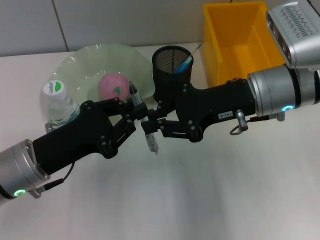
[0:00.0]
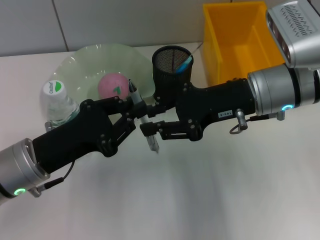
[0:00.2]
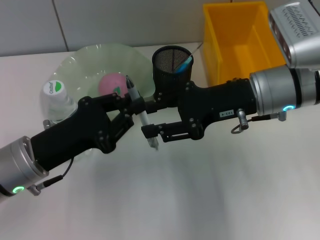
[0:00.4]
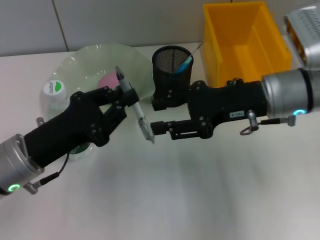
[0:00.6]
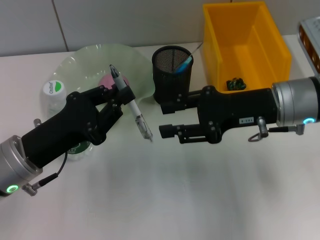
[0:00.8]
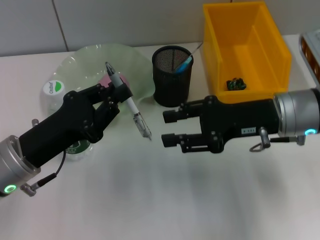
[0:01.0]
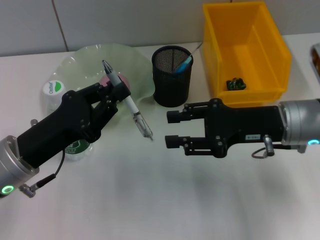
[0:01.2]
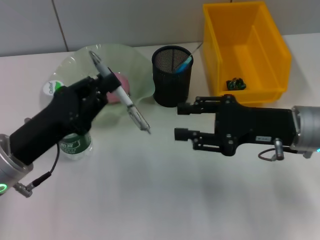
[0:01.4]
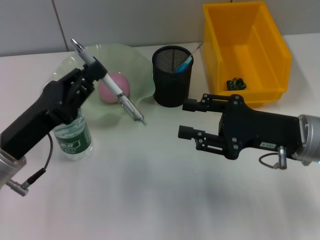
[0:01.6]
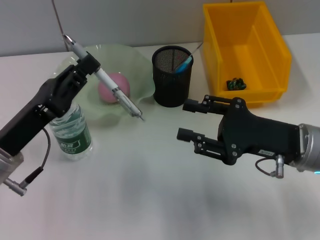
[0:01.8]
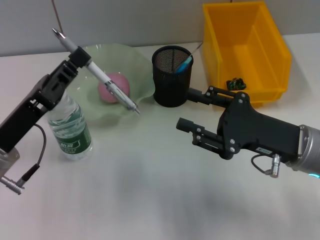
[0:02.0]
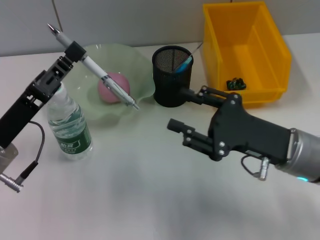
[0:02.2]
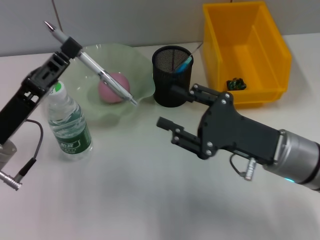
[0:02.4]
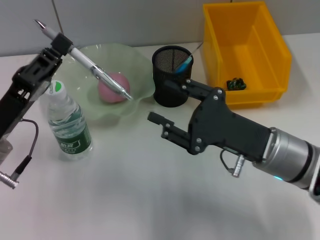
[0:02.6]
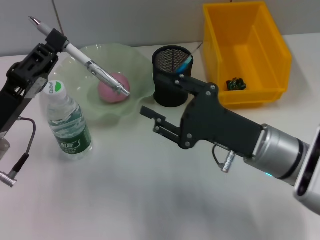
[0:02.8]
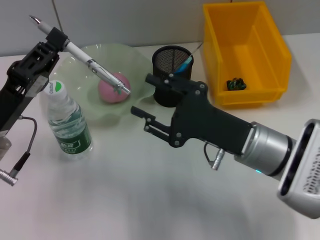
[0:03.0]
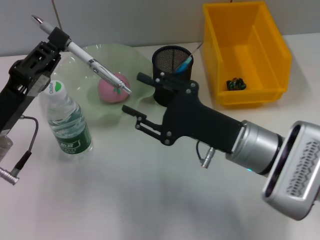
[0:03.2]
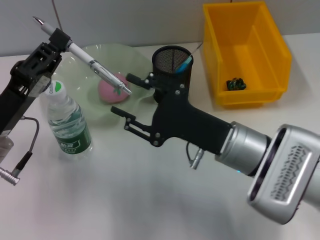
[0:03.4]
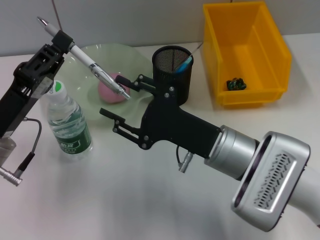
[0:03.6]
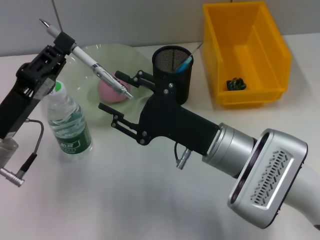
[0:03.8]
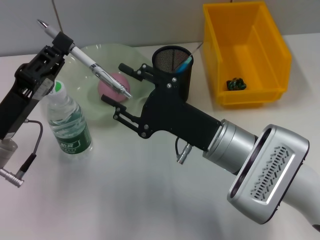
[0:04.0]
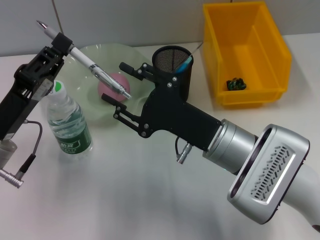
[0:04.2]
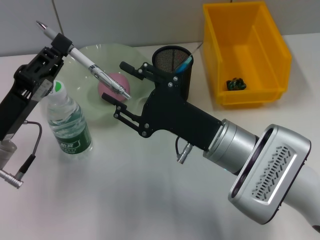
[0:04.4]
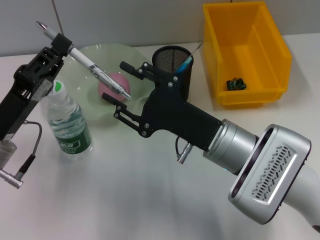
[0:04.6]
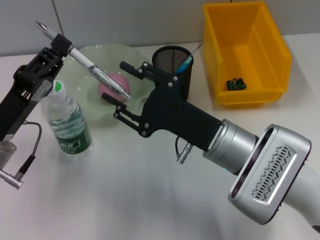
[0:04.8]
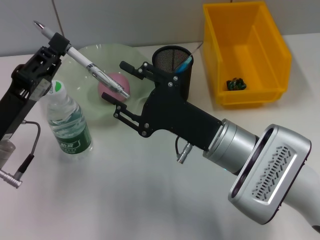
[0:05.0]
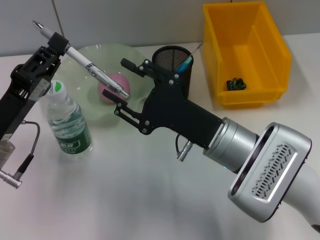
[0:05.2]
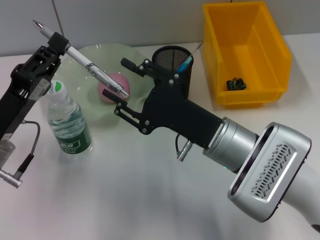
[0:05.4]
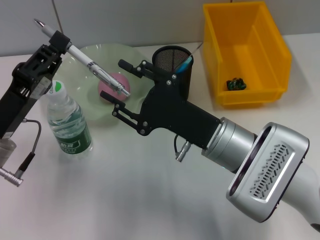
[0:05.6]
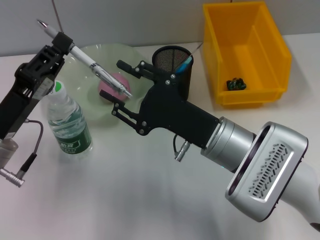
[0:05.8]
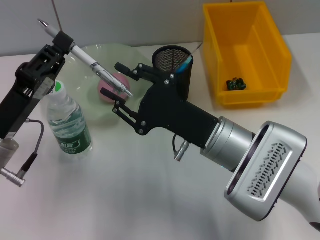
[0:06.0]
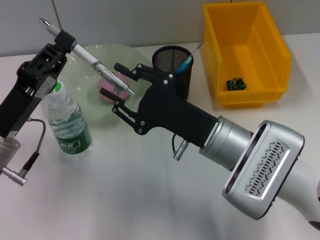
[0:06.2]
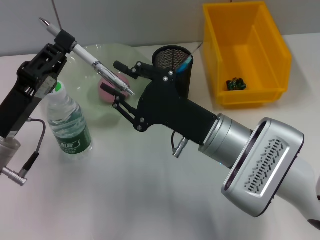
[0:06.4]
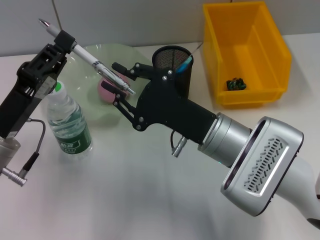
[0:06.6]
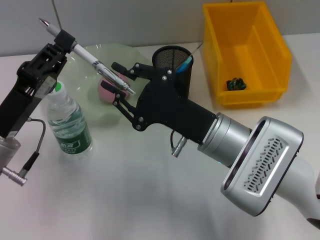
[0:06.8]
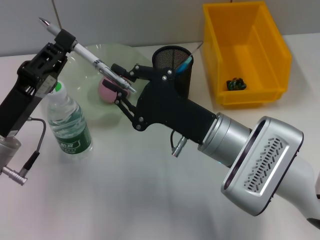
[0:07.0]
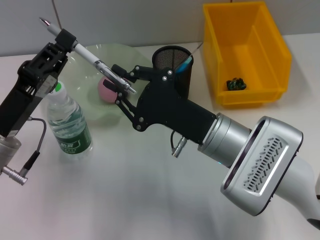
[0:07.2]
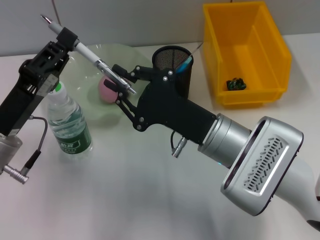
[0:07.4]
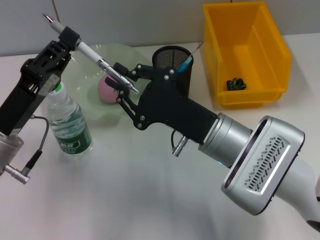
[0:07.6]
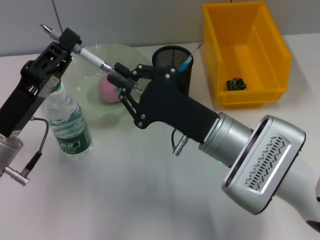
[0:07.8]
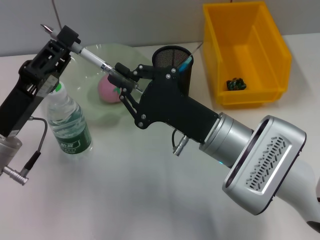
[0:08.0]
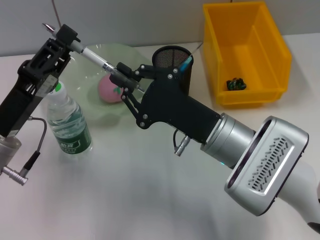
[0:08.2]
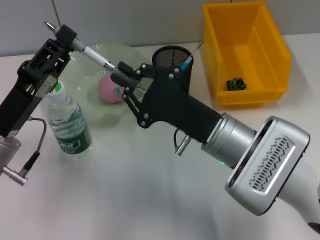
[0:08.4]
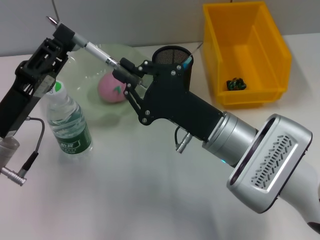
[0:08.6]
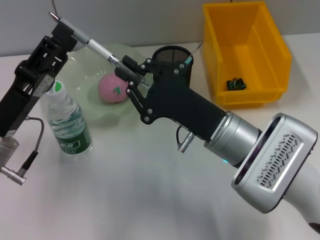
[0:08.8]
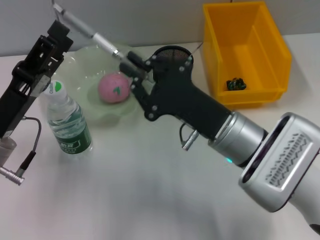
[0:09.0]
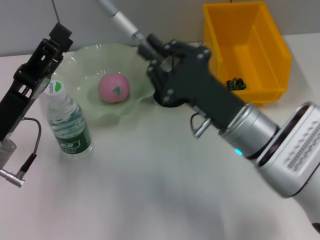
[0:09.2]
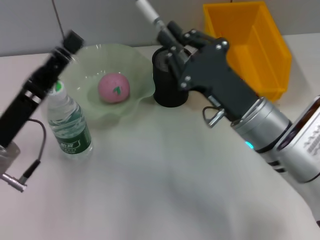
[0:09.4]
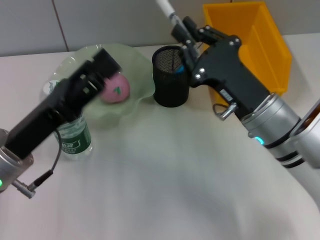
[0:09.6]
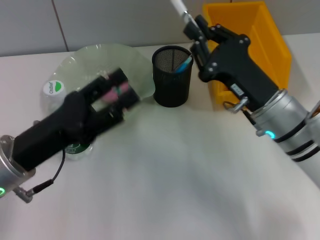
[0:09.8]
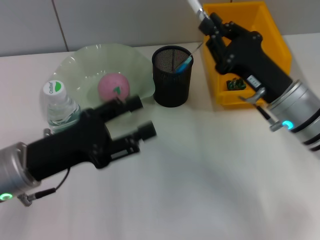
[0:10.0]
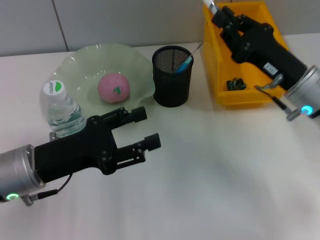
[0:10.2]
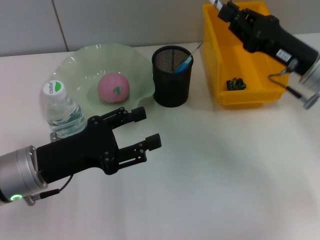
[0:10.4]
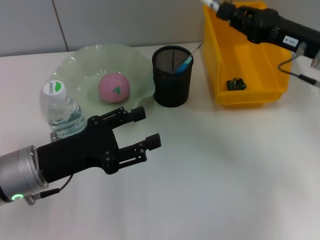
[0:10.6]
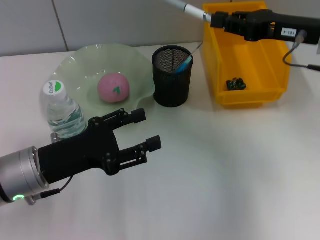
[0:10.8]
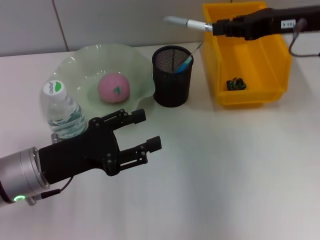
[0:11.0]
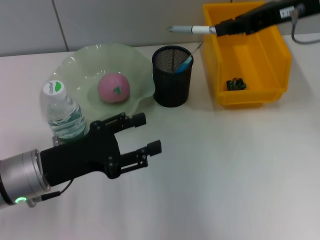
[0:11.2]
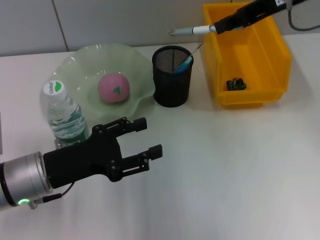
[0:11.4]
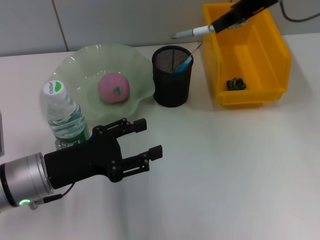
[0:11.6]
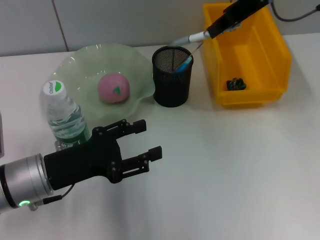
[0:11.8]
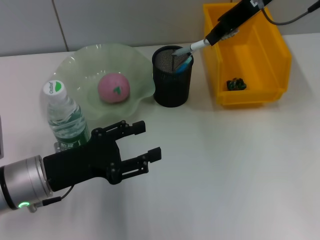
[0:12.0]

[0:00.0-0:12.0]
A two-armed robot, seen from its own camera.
Step, 0:00.4 to 0:08.8: Pass the gray spring-action pen from the left hand to the right hand.
0:00.0 to 0:01.6: The right gripper goes approximately 10 cm backward, downward and to the right, and opens its fingers.
0:01.6 to 0:03.0: The right gripper shifts approximately 10 cm to the left.
0:04.4 to 0:06.0: Both grippers stay about where they are.
0:06.0 to 0:07.6: The right gripper closes.
0:07.6 to 0:09.0: The left gripper opens.
0:09.0 to 0:10.4: The right gripper heads to the right and forward, covering roughly 15 cm.
0:10.4 to 0:12.0: The right gripper goes some 20 cm upward, forward and to the left.

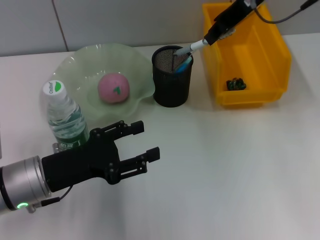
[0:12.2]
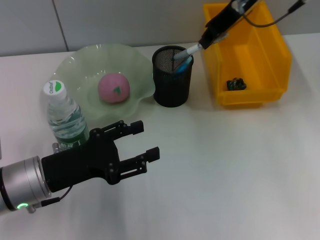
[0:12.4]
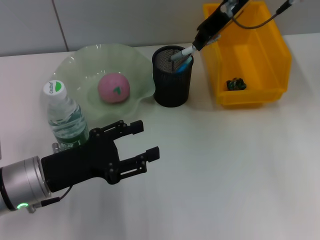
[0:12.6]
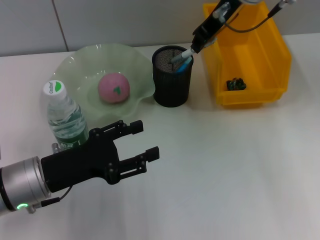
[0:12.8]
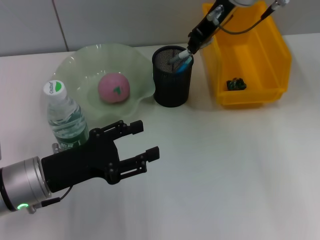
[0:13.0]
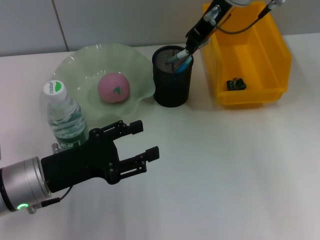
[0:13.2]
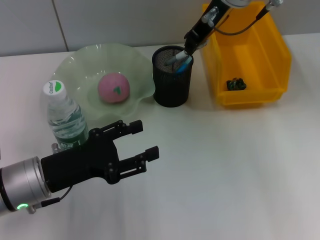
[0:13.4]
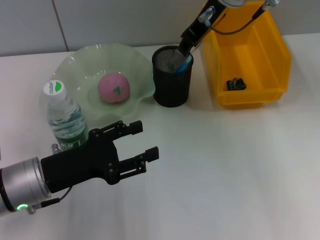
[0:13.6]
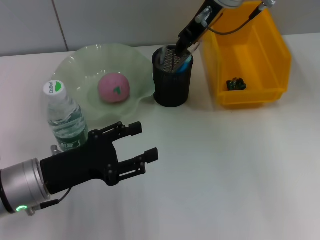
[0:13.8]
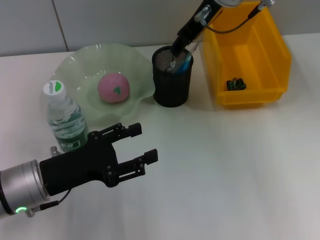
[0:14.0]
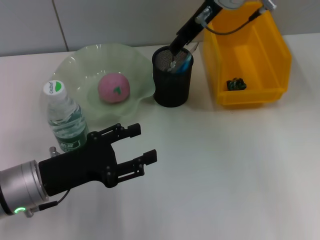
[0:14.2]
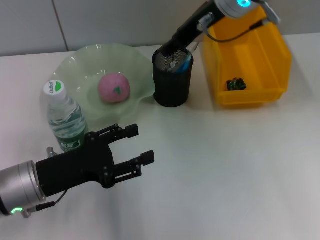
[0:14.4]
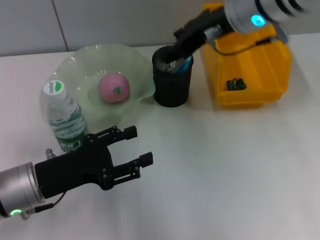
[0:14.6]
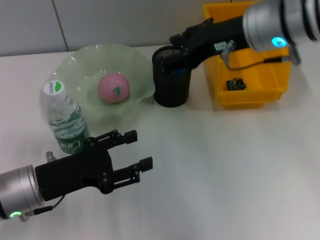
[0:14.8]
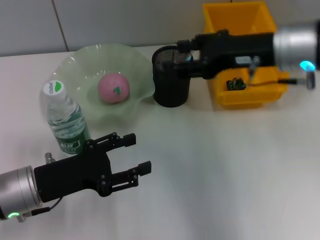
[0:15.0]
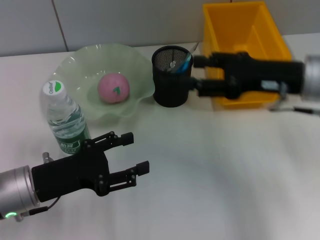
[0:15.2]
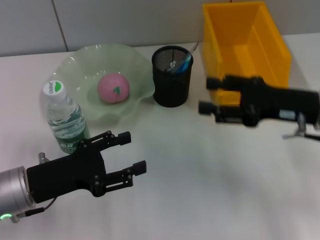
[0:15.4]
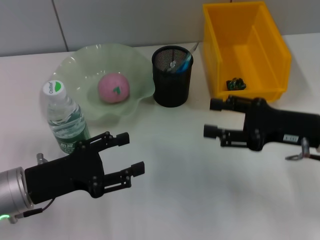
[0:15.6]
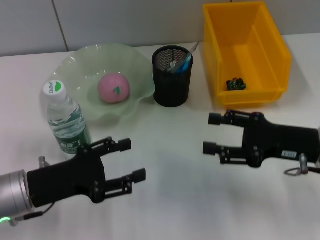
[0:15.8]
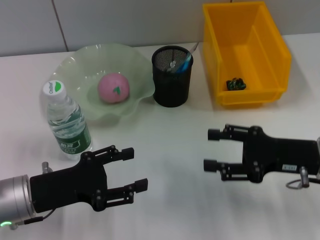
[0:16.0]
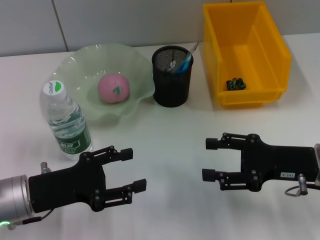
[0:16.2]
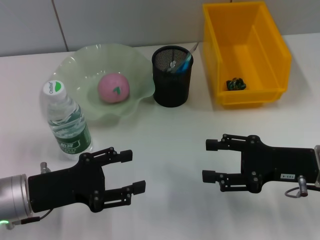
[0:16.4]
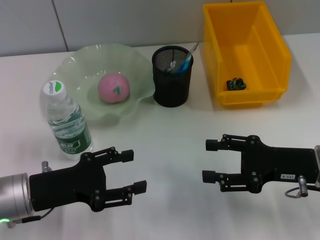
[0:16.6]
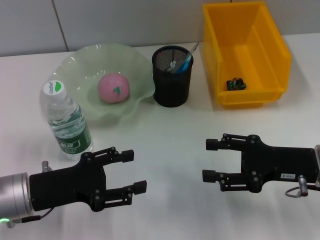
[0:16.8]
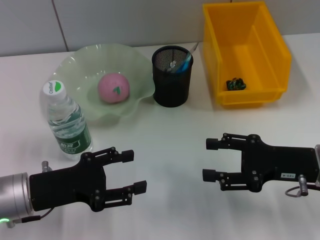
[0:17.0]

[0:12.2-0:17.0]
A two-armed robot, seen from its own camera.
0:12.2 to 0:13.8: The right gripper is displaced to the left by approximately 5 cm.
0:13.8 to 0:15.4: The right gripper goes roughly 25 cm to the right, backward and downward, and opens up.
0:15.4 to 0:17.0: The right gripper is displaced downward by roughly 5 cm.

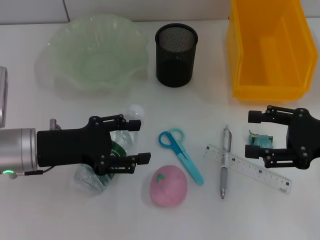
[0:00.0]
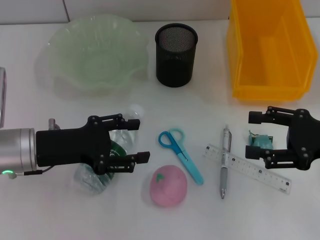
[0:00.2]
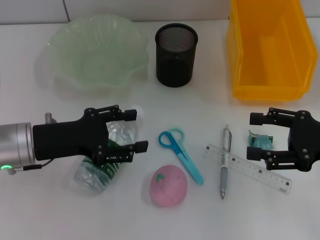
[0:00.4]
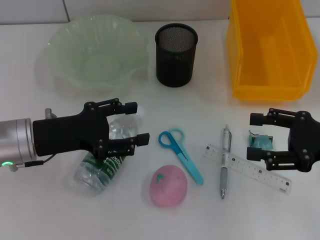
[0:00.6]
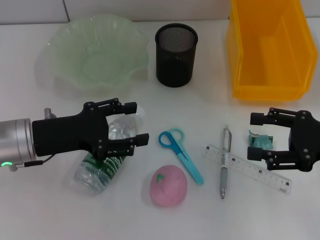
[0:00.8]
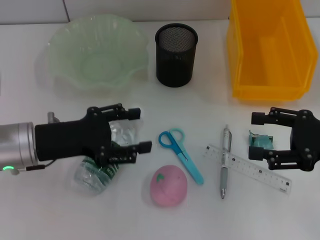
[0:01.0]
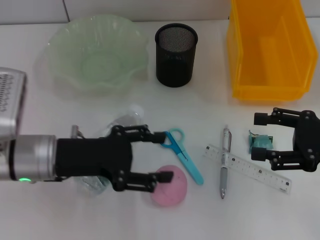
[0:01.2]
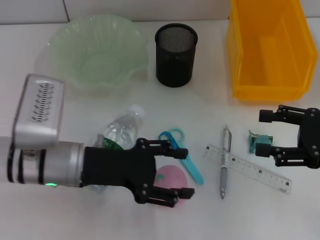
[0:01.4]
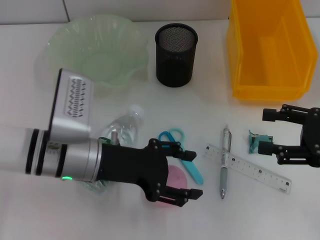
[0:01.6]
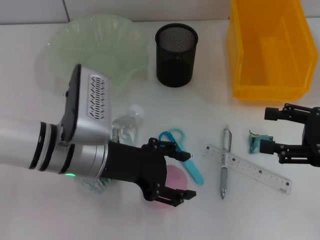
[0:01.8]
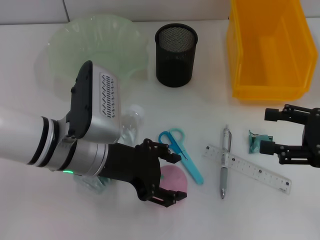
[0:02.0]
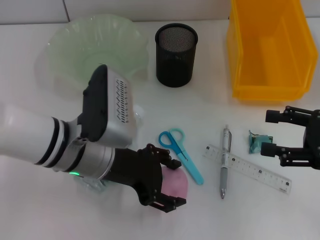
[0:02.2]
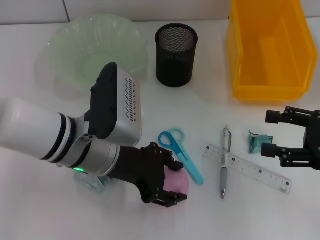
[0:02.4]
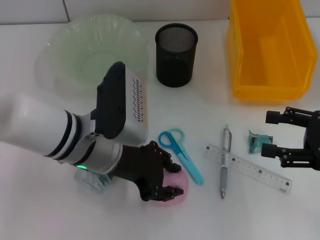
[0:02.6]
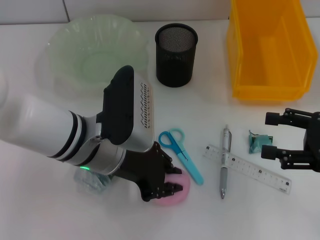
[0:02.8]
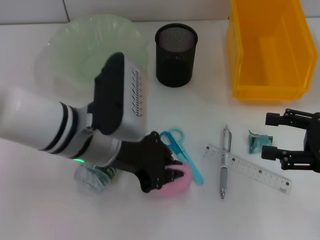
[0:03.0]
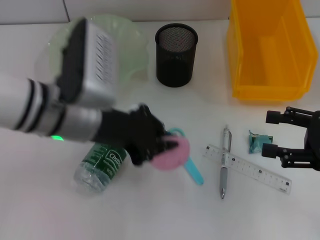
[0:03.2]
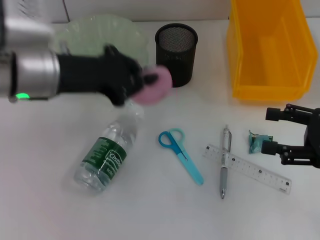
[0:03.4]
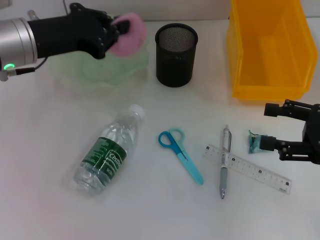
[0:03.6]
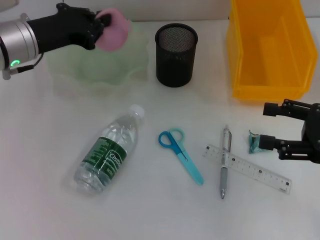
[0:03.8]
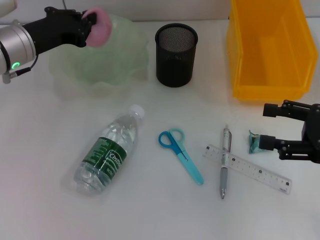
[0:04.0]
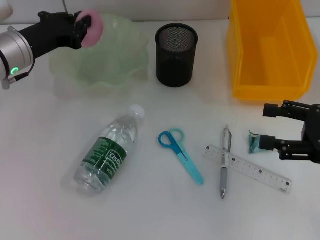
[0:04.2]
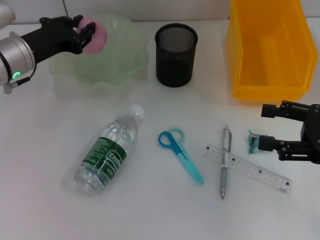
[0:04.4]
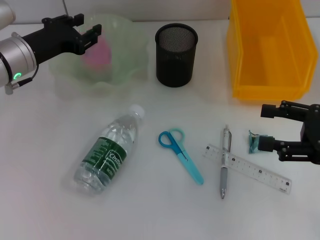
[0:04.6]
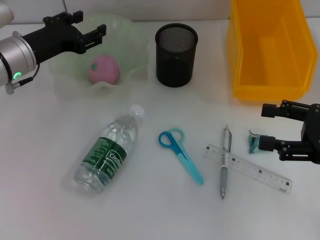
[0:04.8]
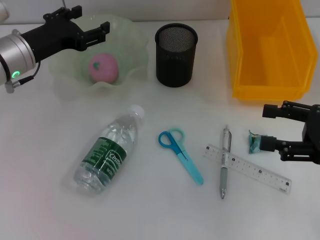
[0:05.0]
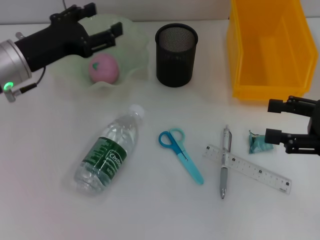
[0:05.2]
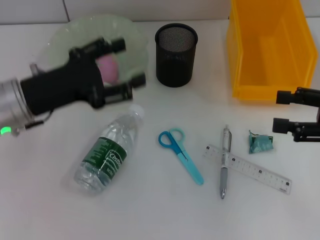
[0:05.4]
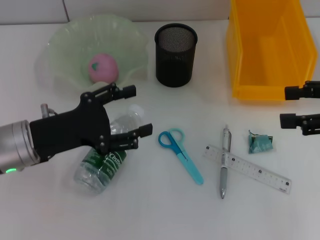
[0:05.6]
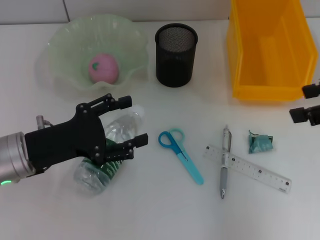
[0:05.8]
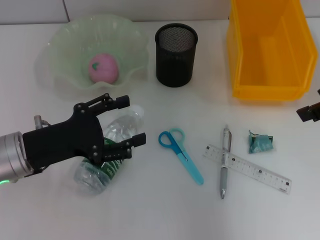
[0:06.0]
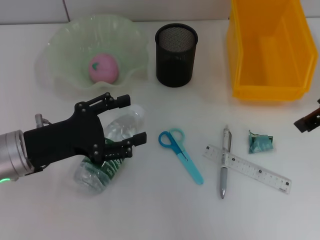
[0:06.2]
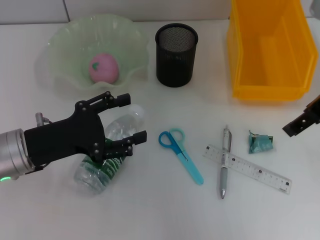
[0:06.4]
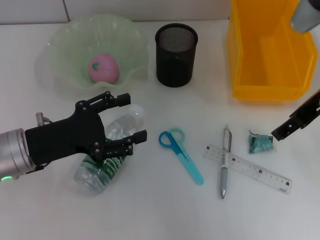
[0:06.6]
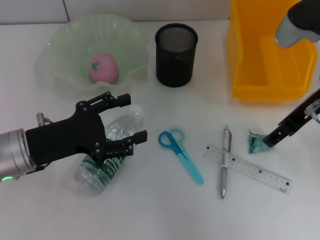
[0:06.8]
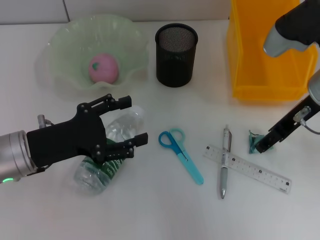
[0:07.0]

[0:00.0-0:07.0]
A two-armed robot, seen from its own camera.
Step, 0:00.0 to 0:02.8: Grab the peach with the left hand.
Step, 0:03.0 to 0:04.8: Place the peach into the fruit bowl with the left hand.
0:00.0 to 0:01.4: The left gripper moves to the right, approximately 5 cm.
0:01.4 to 0:02.8: The left gripper heads to the right, covering about 5 cm, and closes.
0:02.8 to 0:04.2: The left gripper travels to the left and forward by some 20 cm, and closes its fingers.
0:04.2 to 0:05.6: The right gripper goes approximately 10 cm upward. Meanwhile the left gripper is displaced backward by about 10 cm, and opens.
0:05.6 to 0:07.0: The right gripper shifts roughly 15 cm to the left and forward.
